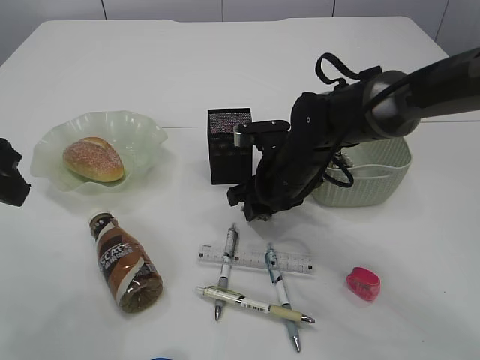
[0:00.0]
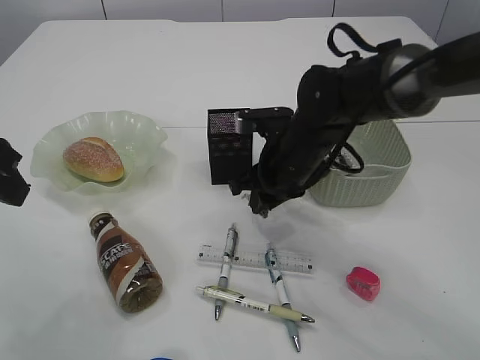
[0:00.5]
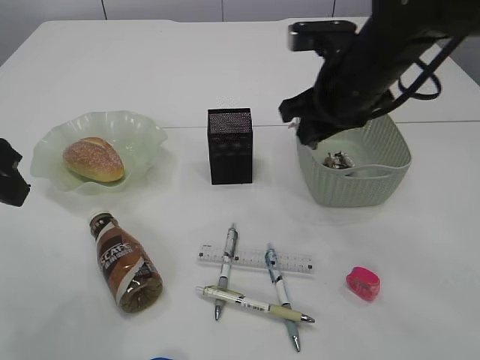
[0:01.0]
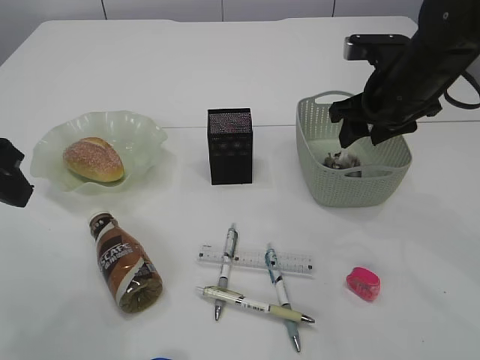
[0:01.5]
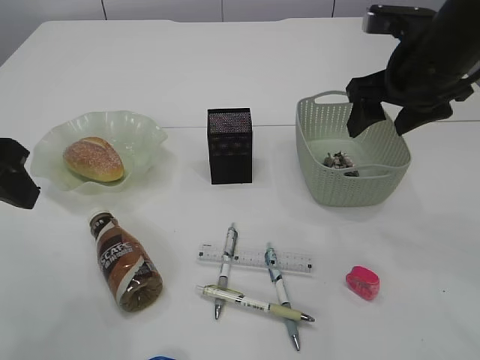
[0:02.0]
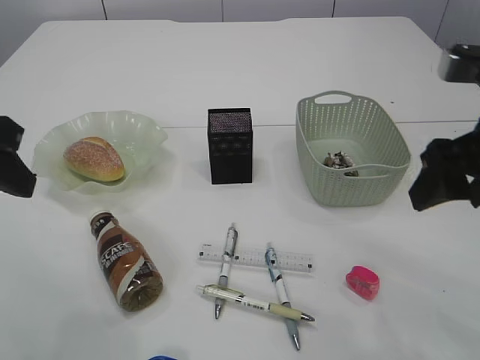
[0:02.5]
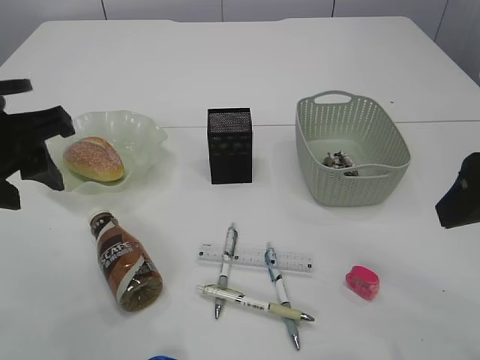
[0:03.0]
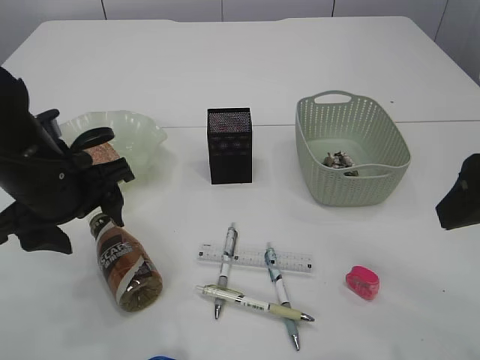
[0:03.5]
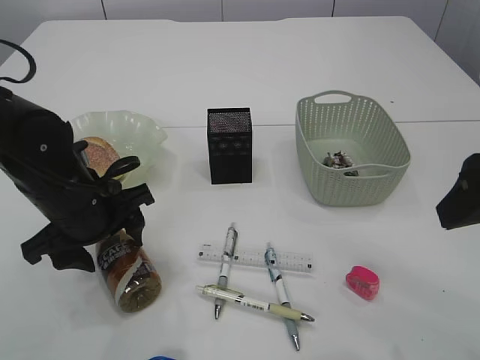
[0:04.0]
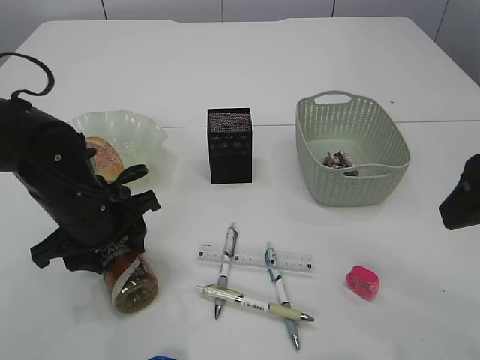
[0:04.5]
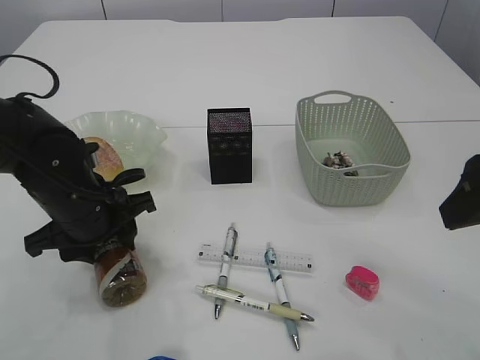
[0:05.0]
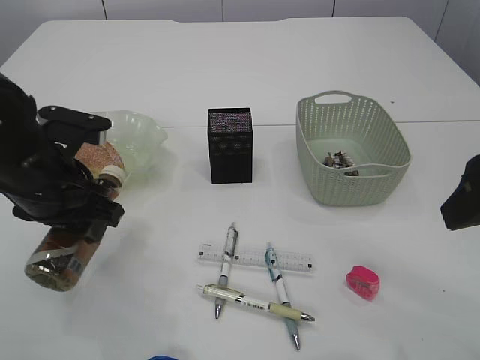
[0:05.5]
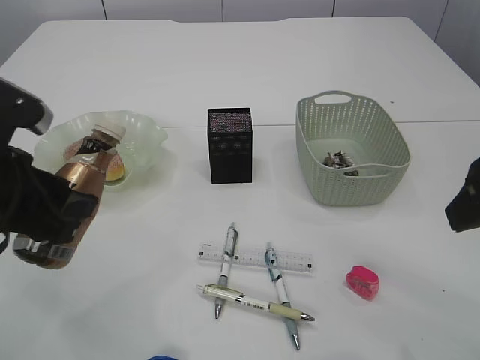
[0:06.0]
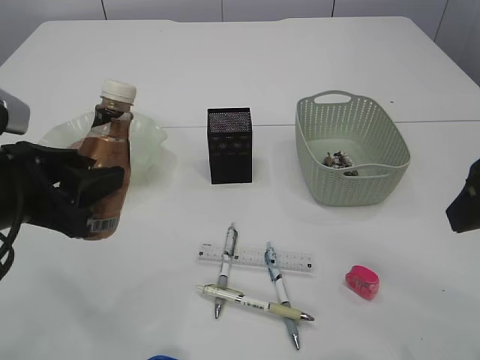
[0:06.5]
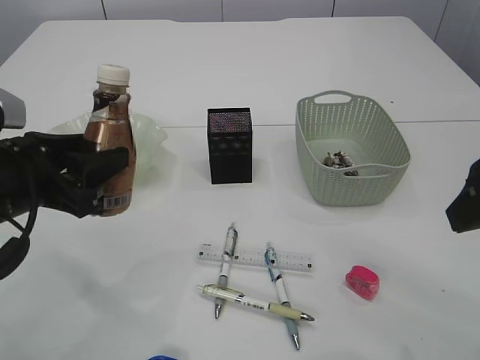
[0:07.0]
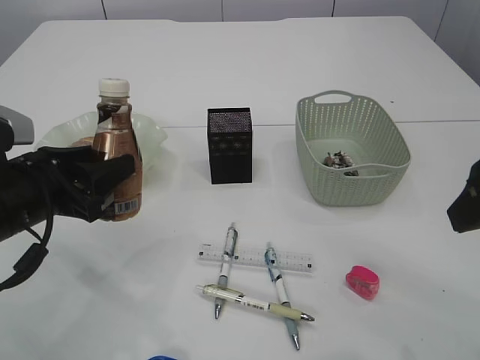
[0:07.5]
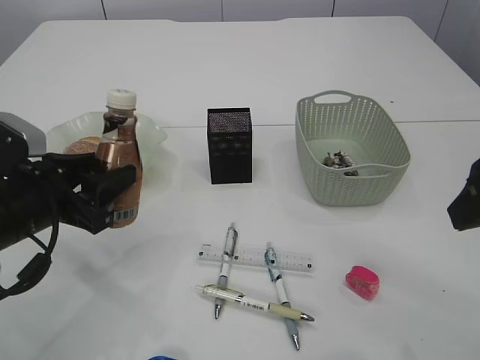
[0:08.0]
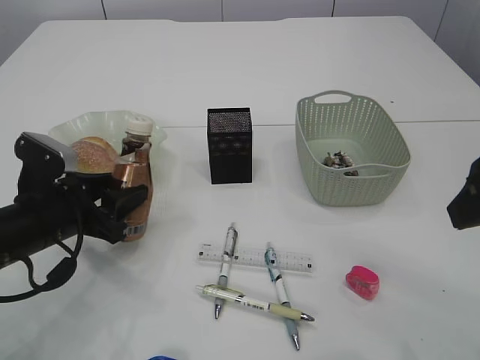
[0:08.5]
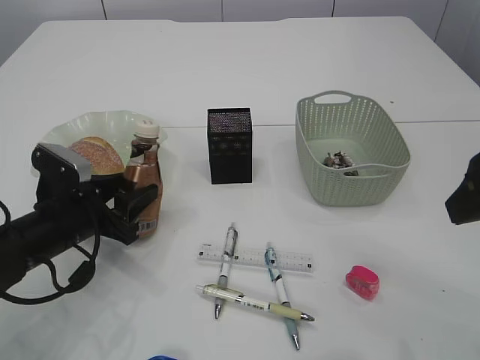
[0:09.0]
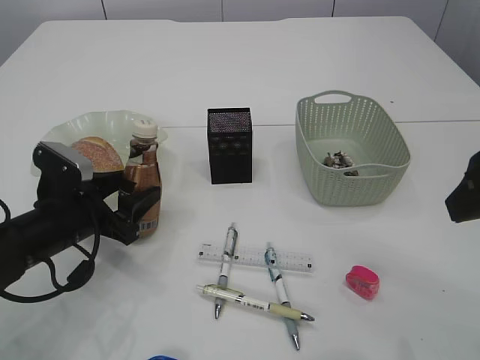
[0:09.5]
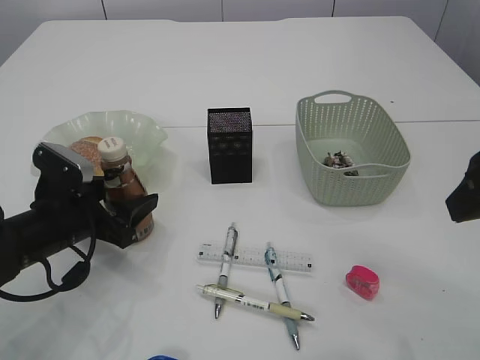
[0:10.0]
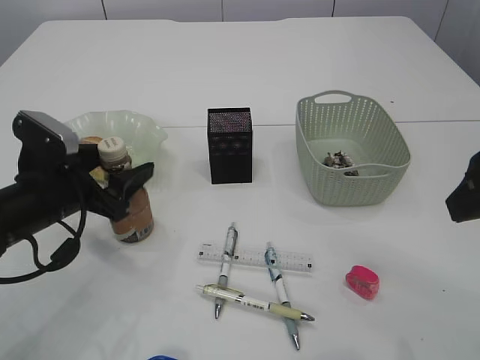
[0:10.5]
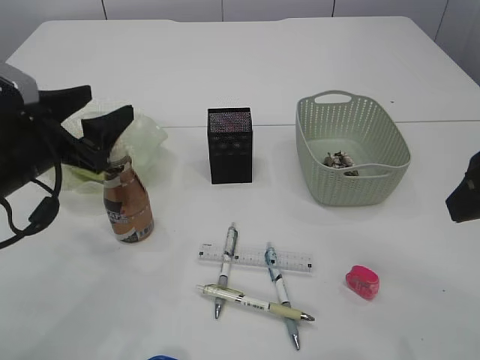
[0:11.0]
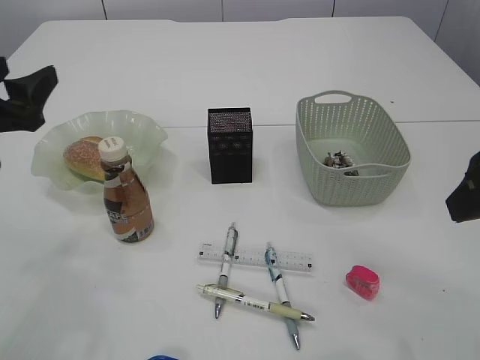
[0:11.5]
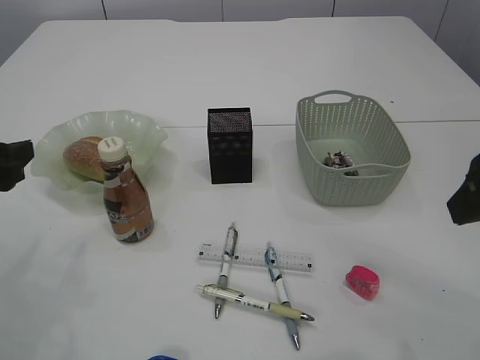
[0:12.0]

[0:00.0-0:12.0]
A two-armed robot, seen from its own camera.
Step, 0:01.0 to 0:02.0: Place the waste paper in the basket.
Step, 0:02.5 to 0:05.5: Pick up the bottle with the left arm.
Step, 0:06.0 to 0:10.5: Place the bottle.
0:00.0 to 0:02.0: The right gripper travels upward and to the right by some 20 cm, and opens its fingers.
0:02.0 to 0:04.0: The right gripper shifts approximately 15 cm backward; the left gripper is displaced downward and to the right by some 15 cm.
0:04.0 to 0:06.0: The left gripper is displaced upward and backward by some 10 cm, and closes its fingers.
0:06.0 to 0:08.0: The left gripper shifts approximately 10 cm downward.
0:08.0 to 0:10.0: The left gripper heads downward, covering about 5 cm, and opens up.
0:10.0 to 0:12.0: The left gripper heads upward and to the left, covering some 15 cm.

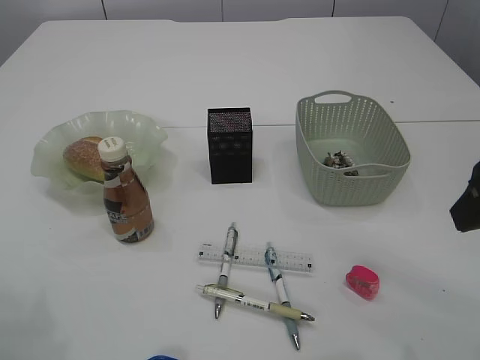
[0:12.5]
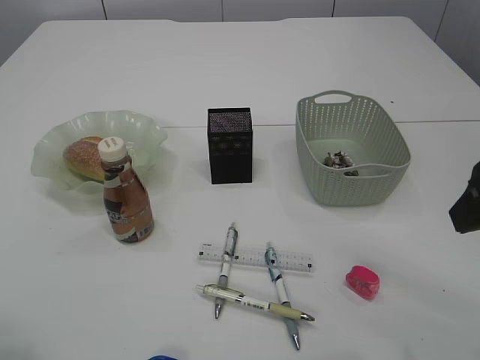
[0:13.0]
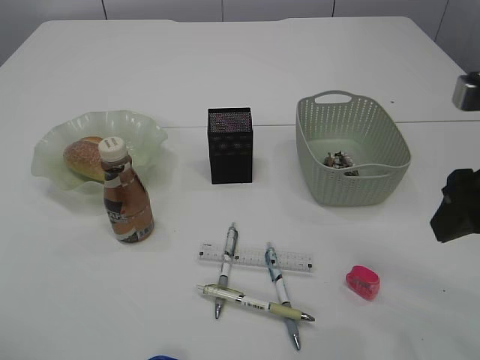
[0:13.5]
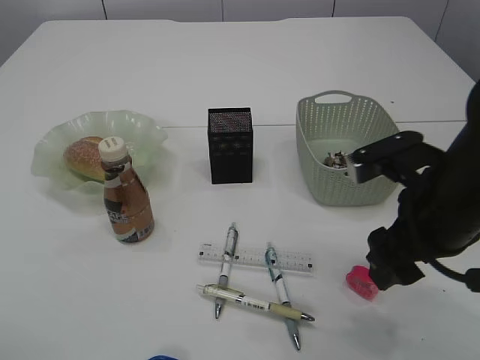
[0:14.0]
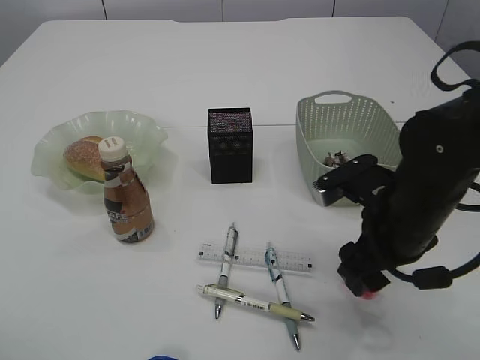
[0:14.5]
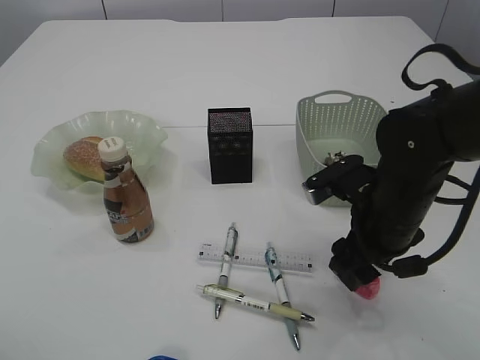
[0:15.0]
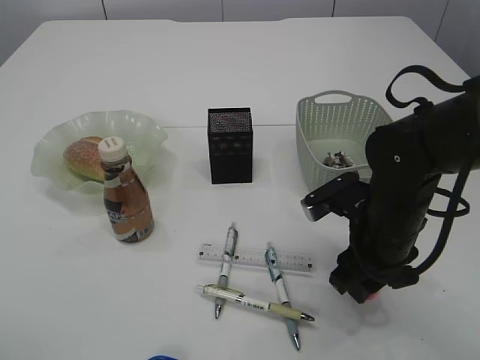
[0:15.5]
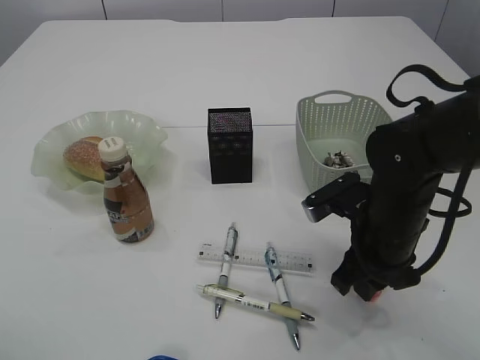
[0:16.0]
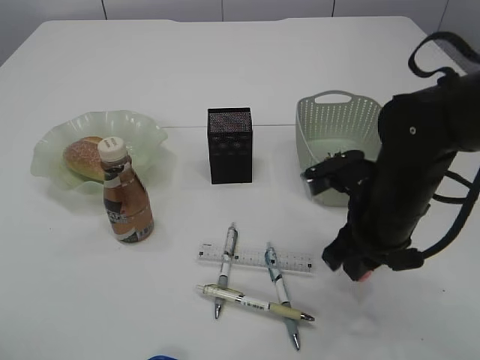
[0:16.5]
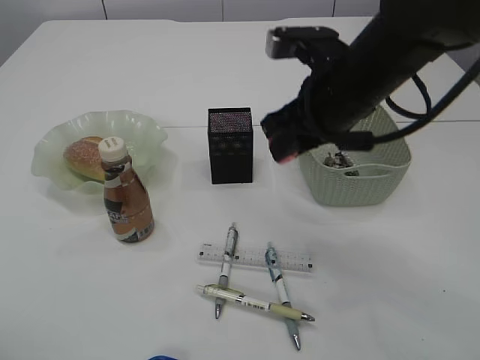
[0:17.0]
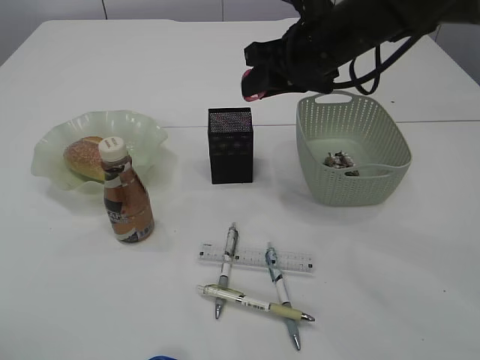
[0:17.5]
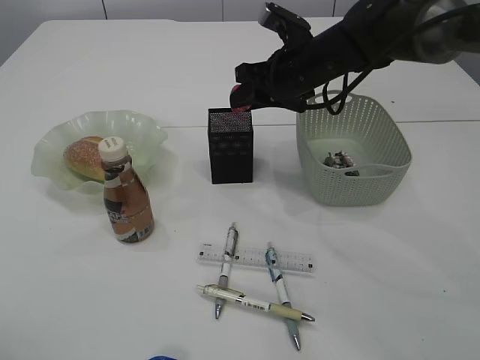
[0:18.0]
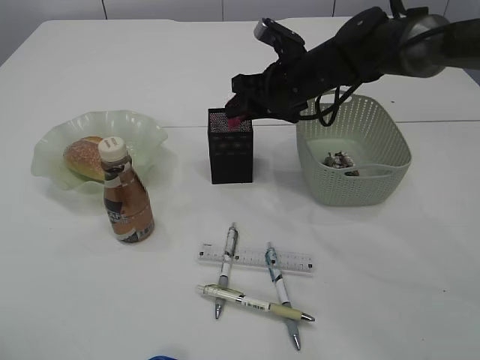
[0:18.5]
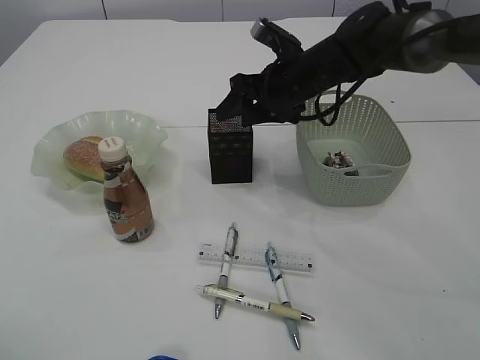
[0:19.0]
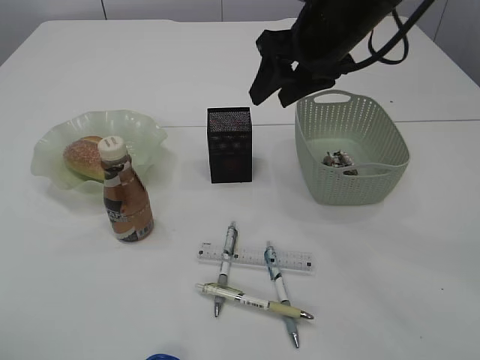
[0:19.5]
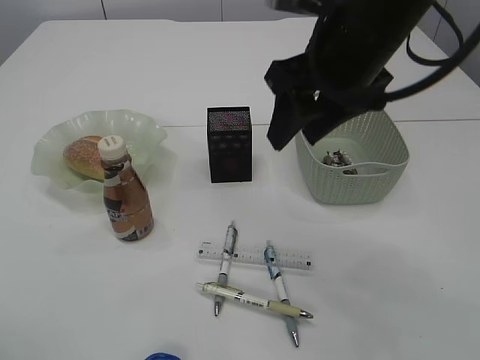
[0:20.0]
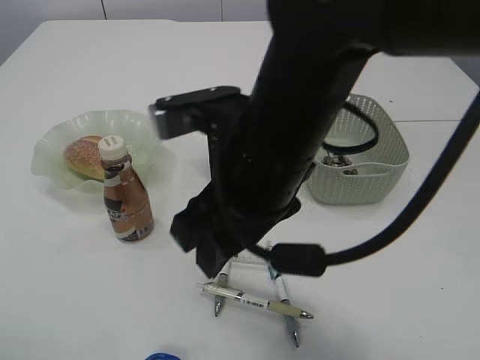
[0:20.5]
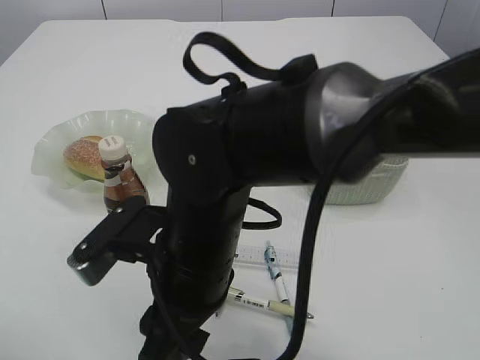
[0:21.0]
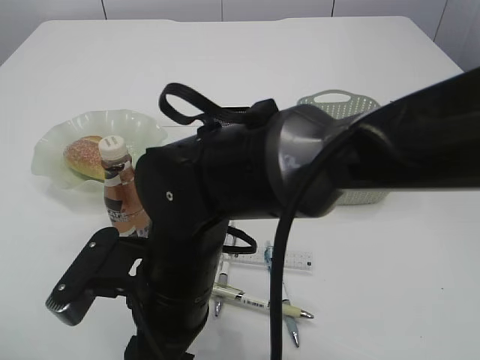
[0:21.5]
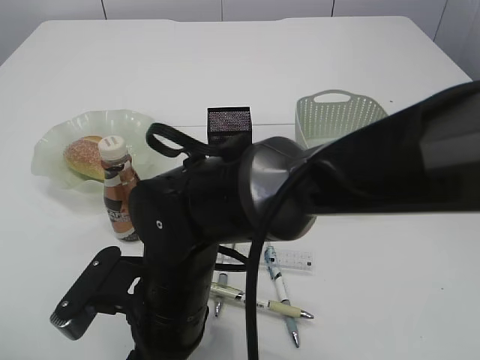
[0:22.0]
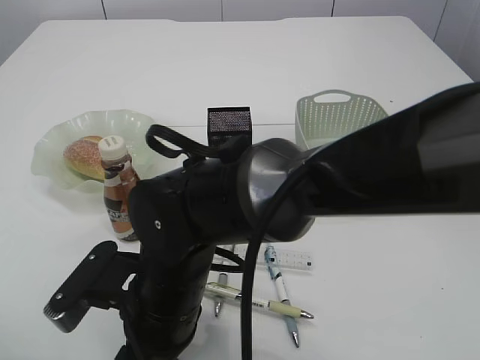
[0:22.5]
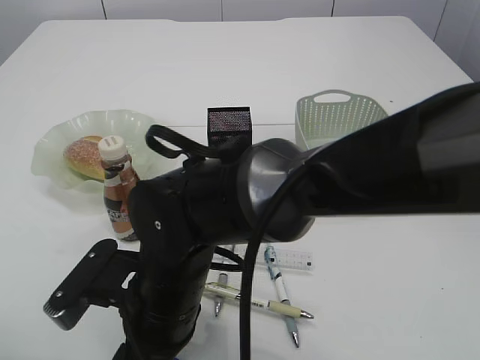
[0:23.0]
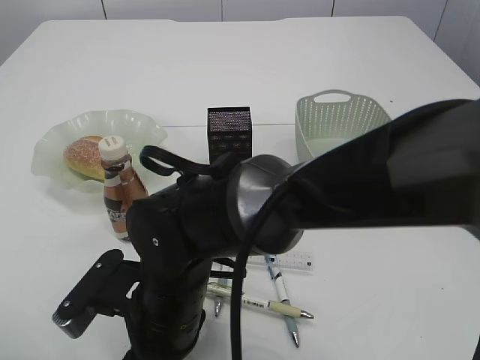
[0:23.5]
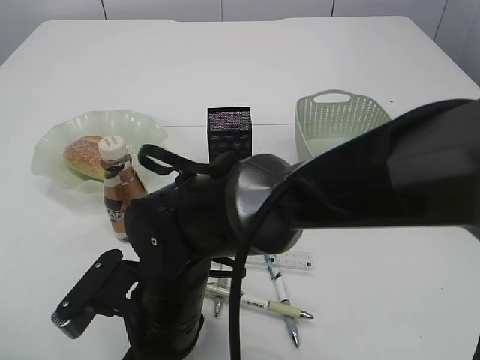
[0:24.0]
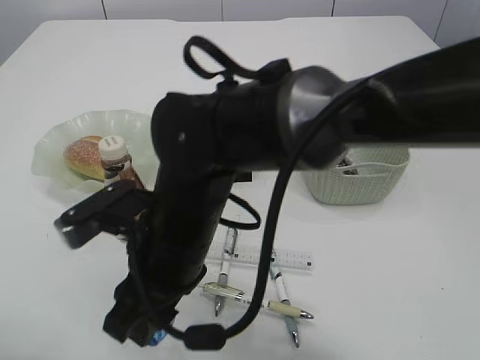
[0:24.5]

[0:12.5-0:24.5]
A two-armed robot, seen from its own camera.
Step, 0:12.5 to 0:16.5: Pick up the red pencil sharpener.
Step, 0:17.0 to 0:19.0: Place the red pencil sharpener into the pen holder.
0:12.5 to 0:14.5: The right gripper heads downward, to the left and forward, covering about 15 cm.
0:14.5 to 0:16.5: The right gripper closes.
0:16.5 to 0:18.5: The right gripper heads forward, covering some 20 cm.
0:18.5 to 0:20.5: The right gripper moves backward, roughly 25 cm.
0:20.5 to 0:22.5: The right gripper shifts approximately 15 cm downward and to the left.
0:22.5 to 0:24.5: The right gripper moves roughly 5 cm.

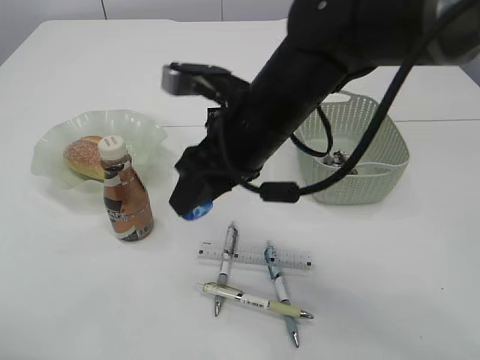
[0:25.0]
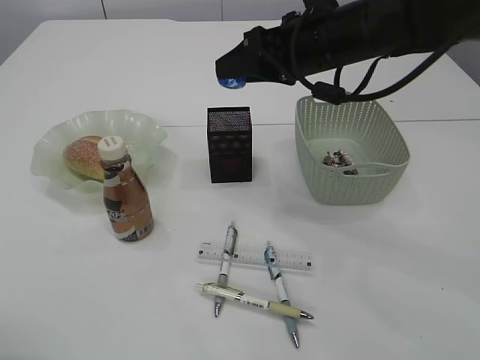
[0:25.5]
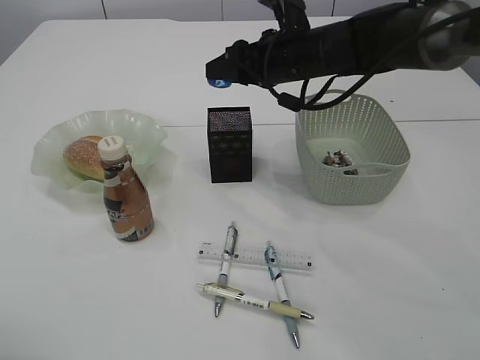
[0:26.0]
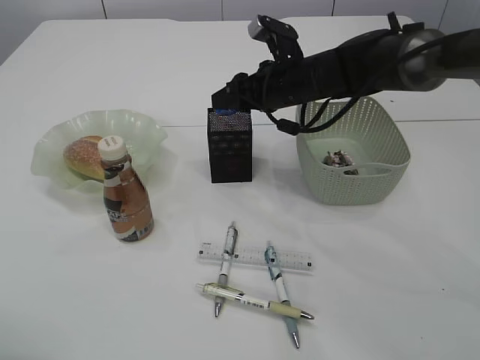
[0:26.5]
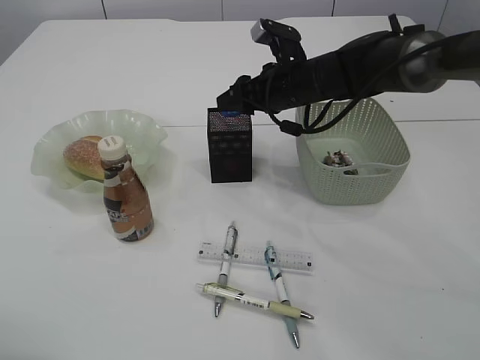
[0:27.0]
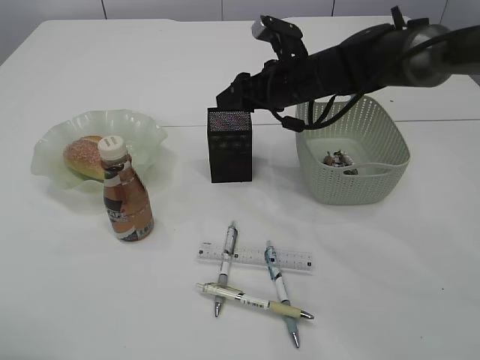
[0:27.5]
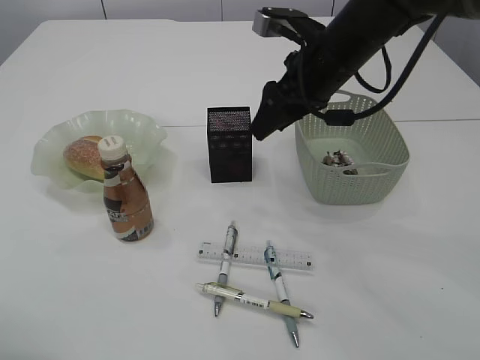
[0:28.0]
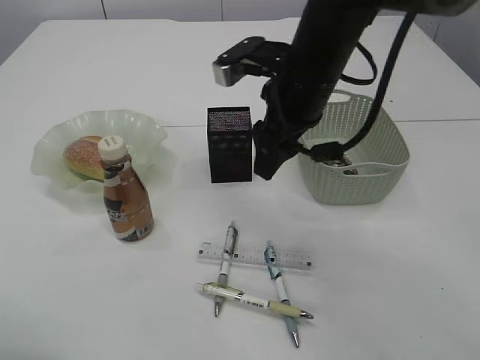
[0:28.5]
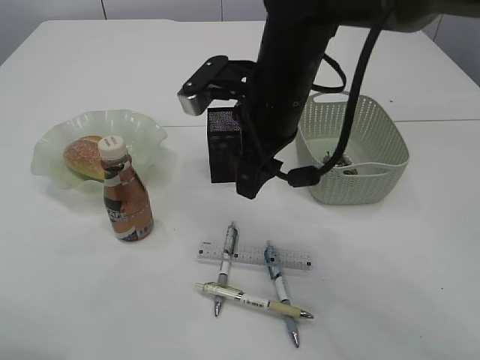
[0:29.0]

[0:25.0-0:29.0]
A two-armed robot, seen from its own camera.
Step, 0:25.0 to 0:27.0: Place the blue pencil sharpener into the pen holder.
0:25.0 to 0:27.0: The right gripper moves forward and to the right, about 20 cm.
0:27.0 to 0:29.0: The right gripper moves backward, upward and to the left, roughly 15 cm.
